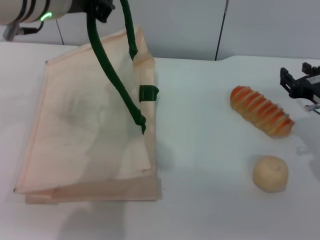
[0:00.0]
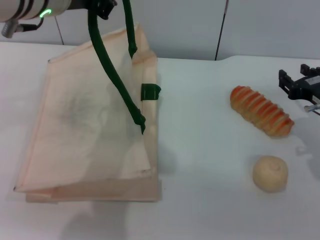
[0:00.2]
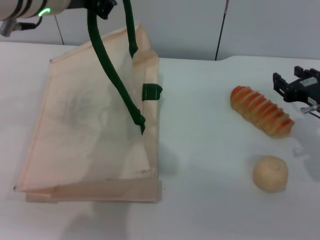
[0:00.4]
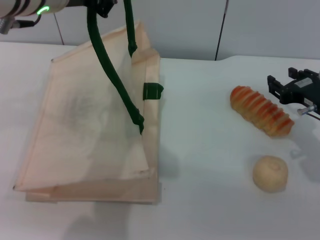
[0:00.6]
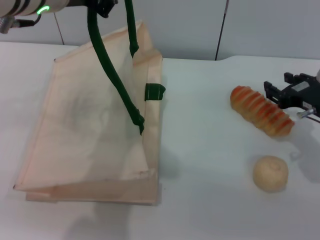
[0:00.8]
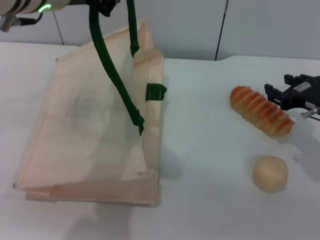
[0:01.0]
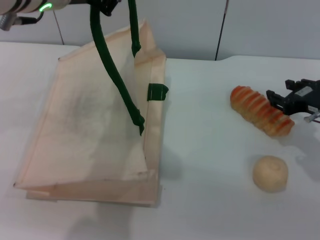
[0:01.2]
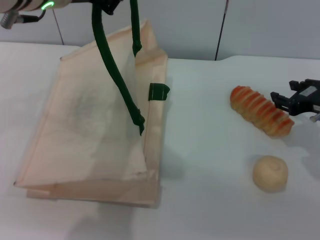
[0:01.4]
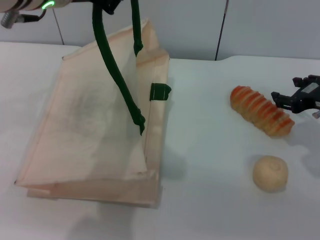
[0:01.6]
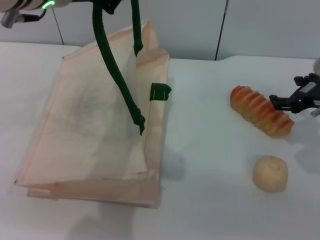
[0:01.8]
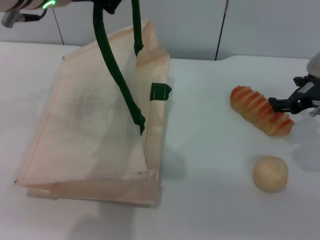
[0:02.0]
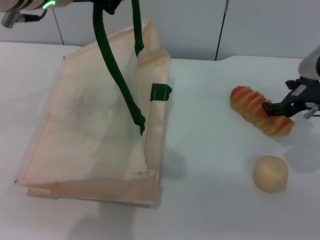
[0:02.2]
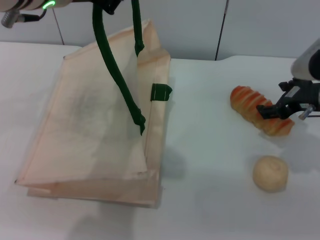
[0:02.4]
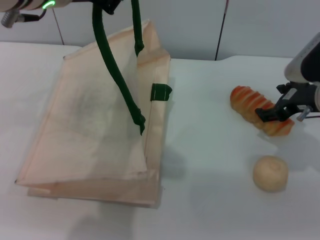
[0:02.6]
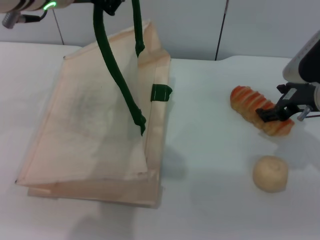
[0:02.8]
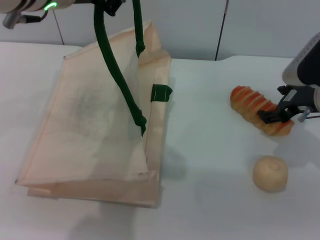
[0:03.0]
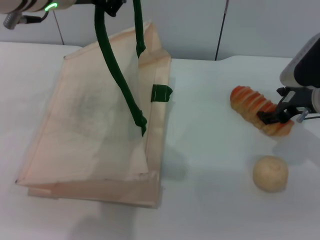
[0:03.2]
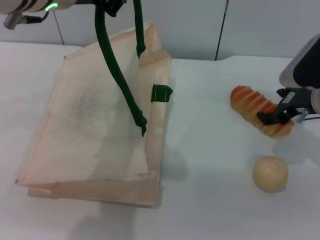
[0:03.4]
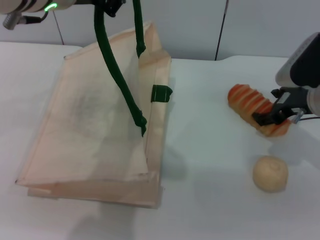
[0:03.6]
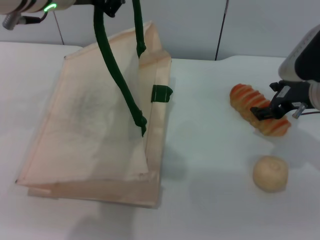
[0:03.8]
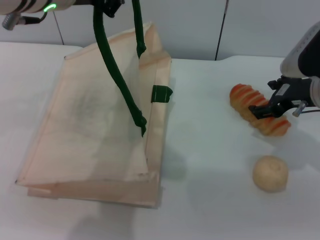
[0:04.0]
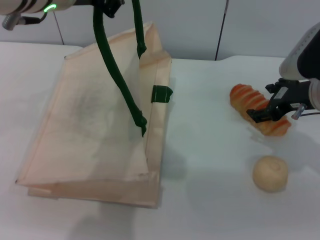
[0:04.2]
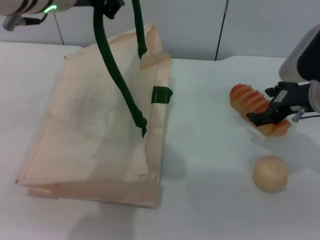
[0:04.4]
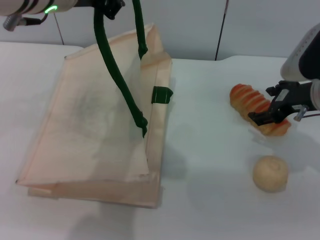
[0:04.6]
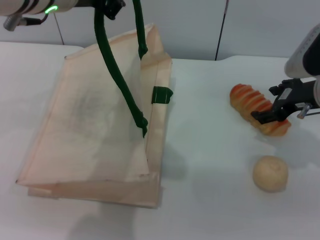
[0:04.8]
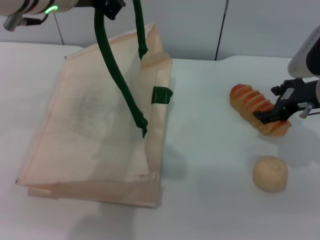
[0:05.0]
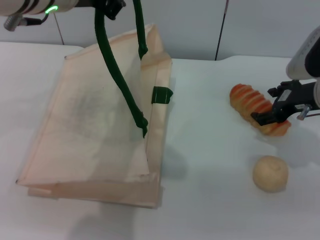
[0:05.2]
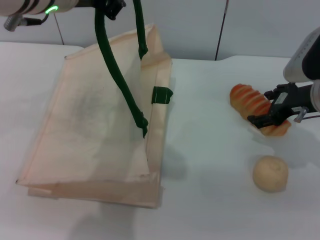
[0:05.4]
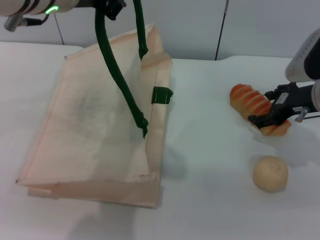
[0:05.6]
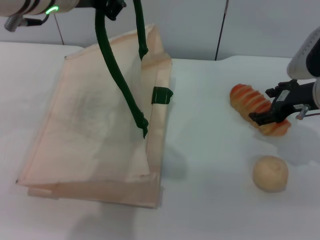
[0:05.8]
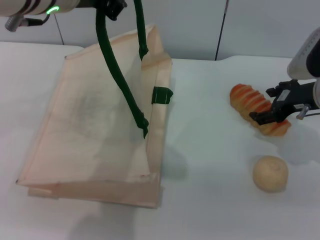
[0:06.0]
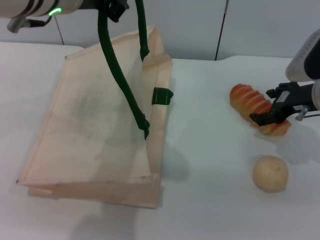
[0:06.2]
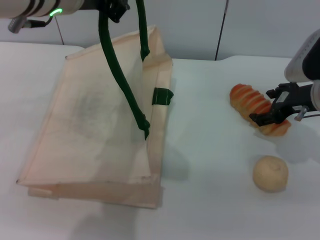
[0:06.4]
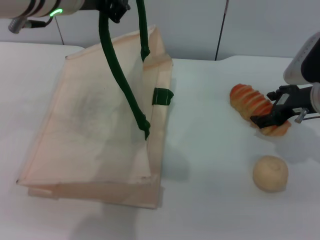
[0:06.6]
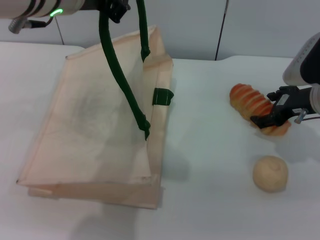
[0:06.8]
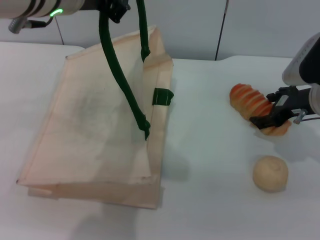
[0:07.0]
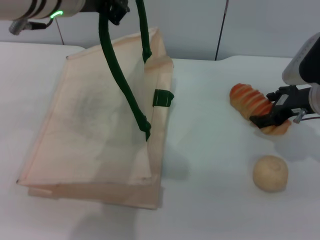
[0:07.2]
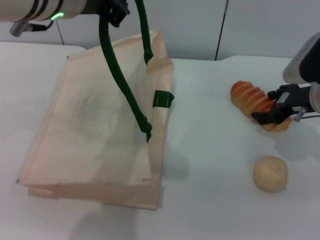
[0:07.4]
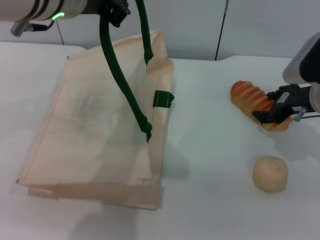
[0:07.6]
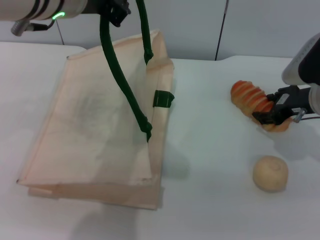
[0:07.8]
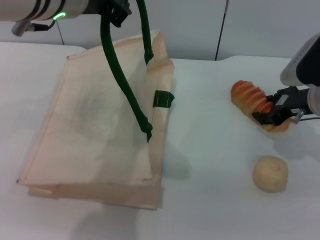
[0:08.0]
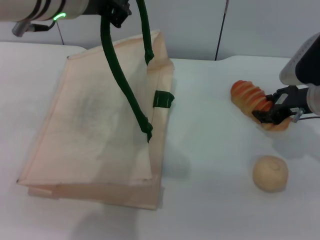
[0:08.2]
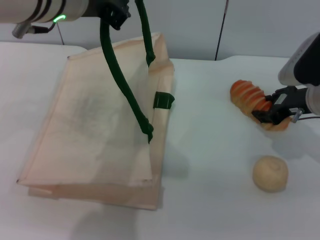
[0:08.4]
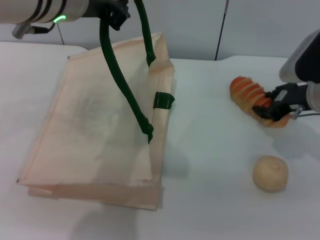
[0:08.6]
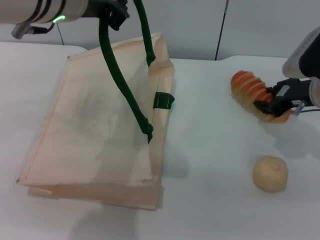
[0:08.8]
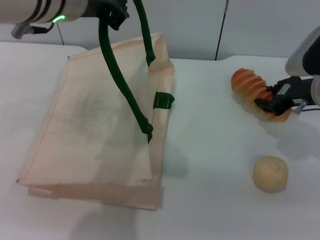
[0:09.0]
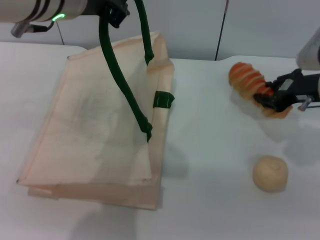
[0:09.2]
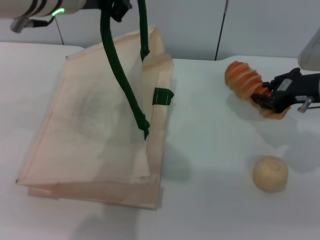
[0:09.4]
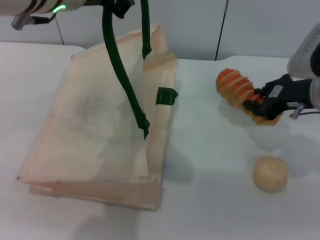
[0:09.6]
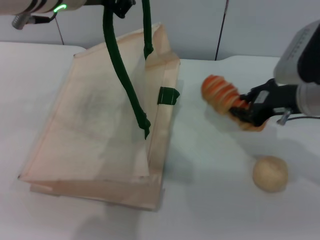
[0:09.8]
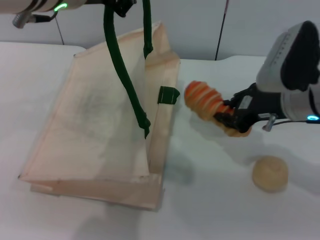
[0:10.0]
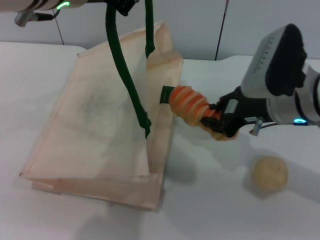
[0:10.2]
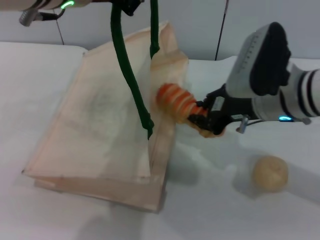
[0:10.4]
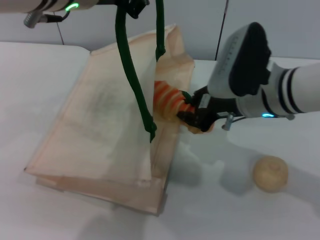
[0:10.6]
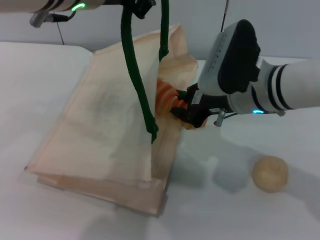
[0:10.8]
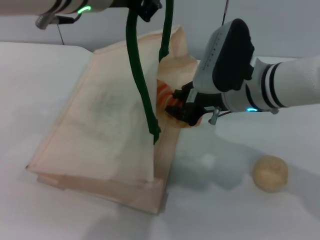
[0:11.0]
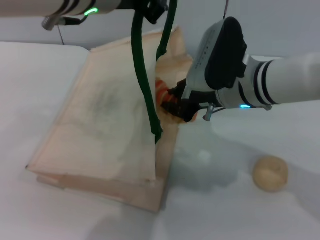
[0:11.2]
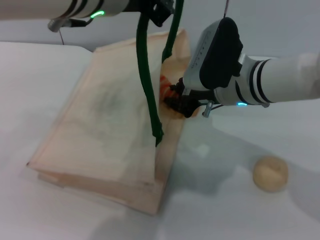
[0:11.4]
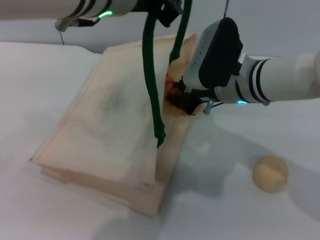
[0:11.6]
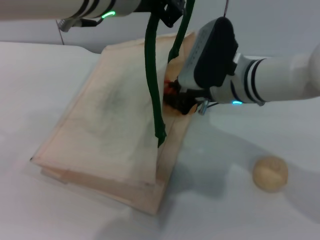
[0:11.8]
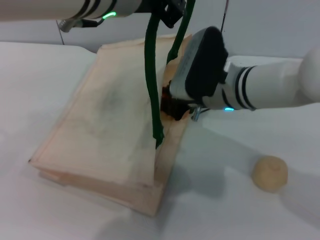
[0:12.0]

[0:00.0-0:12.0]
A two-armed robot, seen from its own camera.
Task of the whole recording: pick up the bread and egg yolk pastry from the table and place it in the white handbag.
Step, 0:00.0 to 0:09.4: Pick up the bread with the right gripper.
0:01.6 to 0:03.0: The right gripper opens up.
0:03.0 to 0:07.6: The grippers move only a little.
0:07.6 to 0:09.0: The right gripper closes its fingers.
0:09.0 to 0:10.4: The right gripper heads to the left and backward, covering about 10 cm.
0:10.4 to 0:12.0: The right gripper shifts roughly 5 cm to the left.

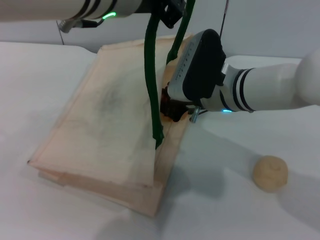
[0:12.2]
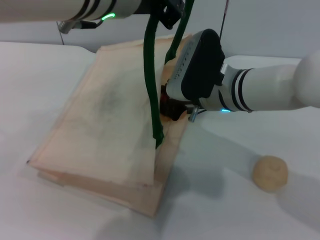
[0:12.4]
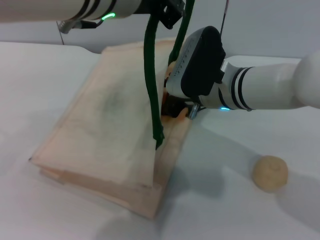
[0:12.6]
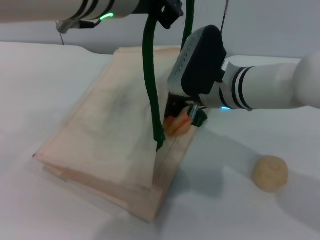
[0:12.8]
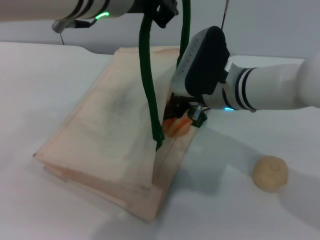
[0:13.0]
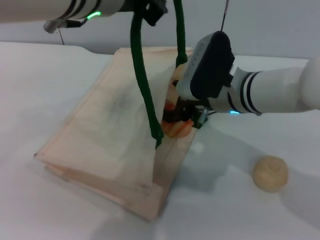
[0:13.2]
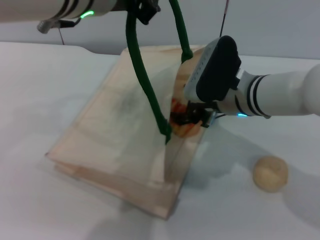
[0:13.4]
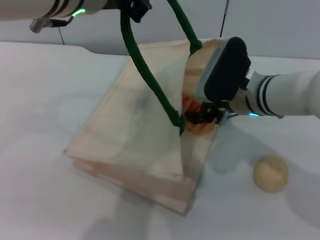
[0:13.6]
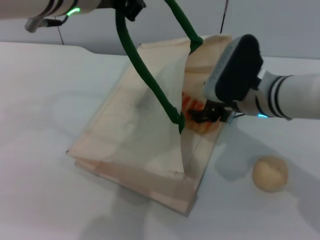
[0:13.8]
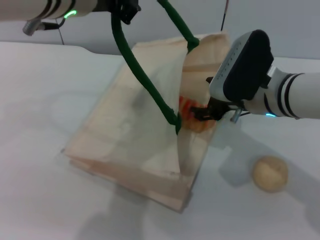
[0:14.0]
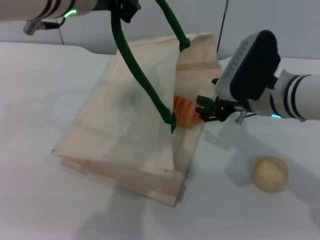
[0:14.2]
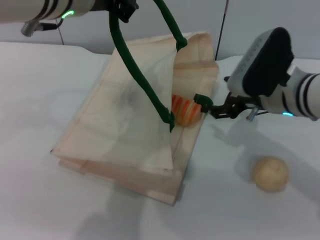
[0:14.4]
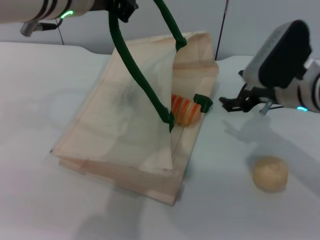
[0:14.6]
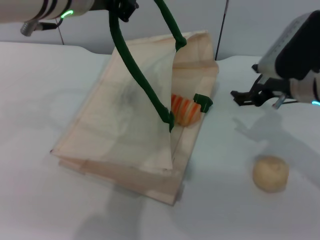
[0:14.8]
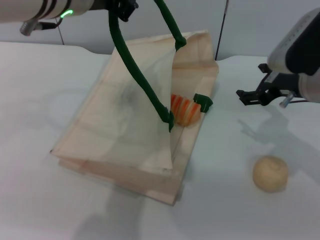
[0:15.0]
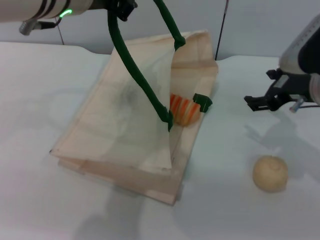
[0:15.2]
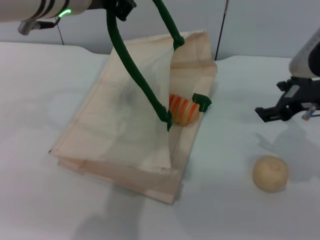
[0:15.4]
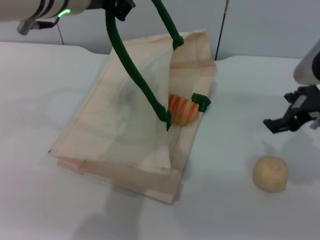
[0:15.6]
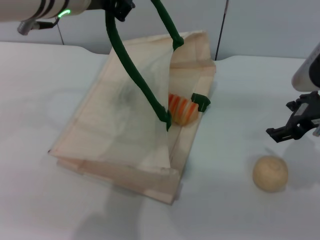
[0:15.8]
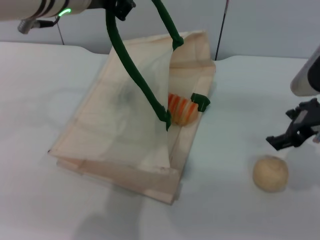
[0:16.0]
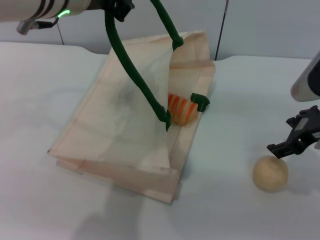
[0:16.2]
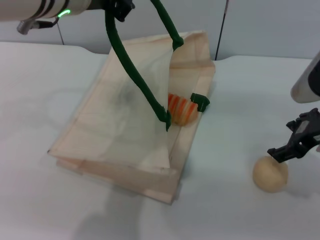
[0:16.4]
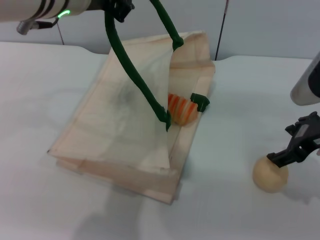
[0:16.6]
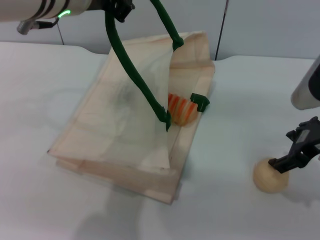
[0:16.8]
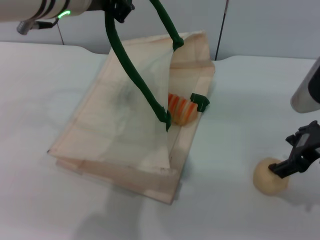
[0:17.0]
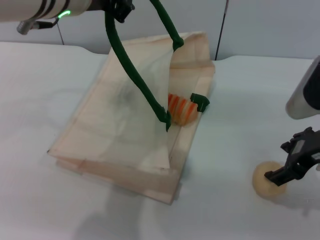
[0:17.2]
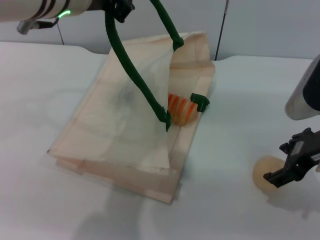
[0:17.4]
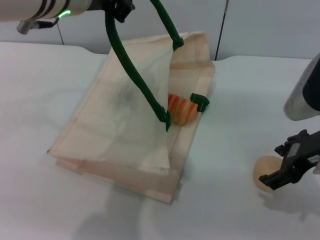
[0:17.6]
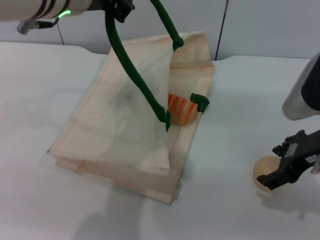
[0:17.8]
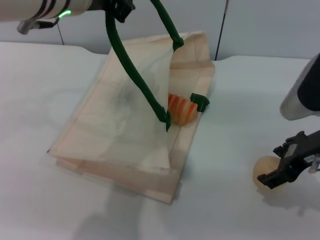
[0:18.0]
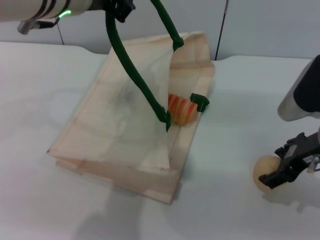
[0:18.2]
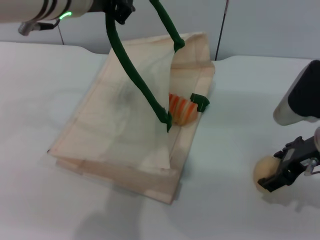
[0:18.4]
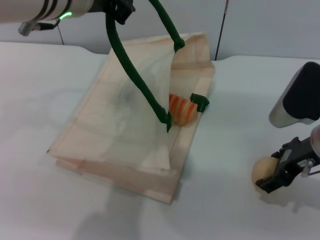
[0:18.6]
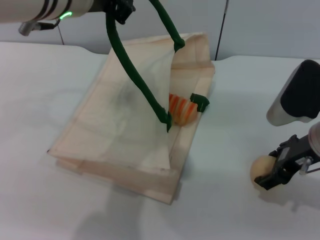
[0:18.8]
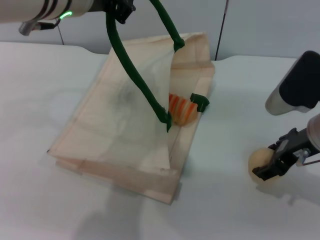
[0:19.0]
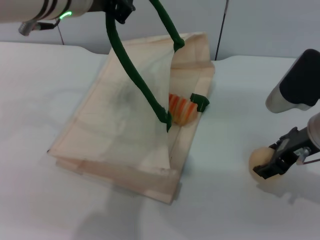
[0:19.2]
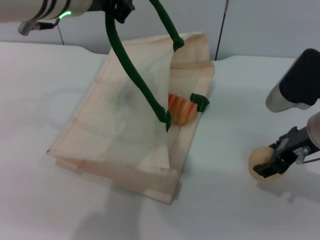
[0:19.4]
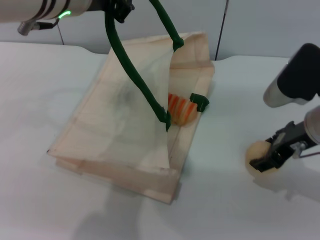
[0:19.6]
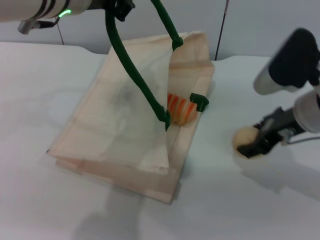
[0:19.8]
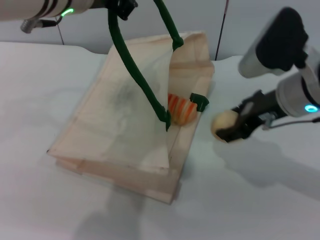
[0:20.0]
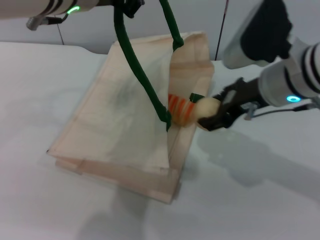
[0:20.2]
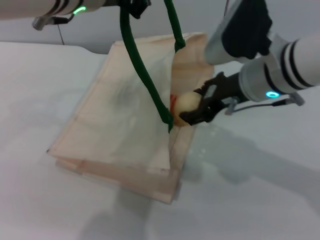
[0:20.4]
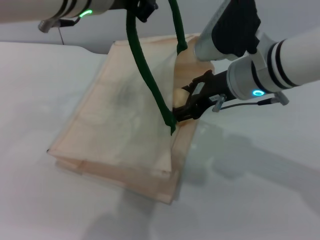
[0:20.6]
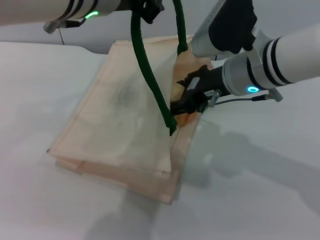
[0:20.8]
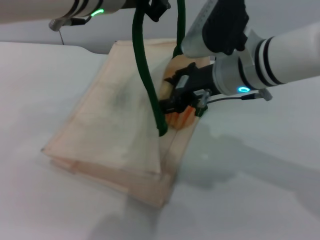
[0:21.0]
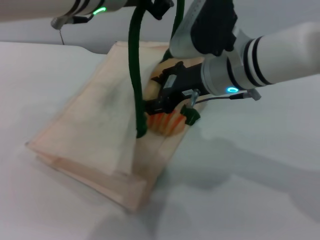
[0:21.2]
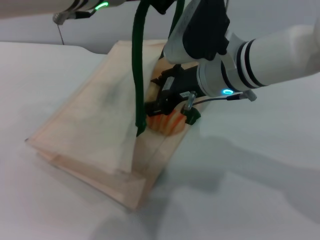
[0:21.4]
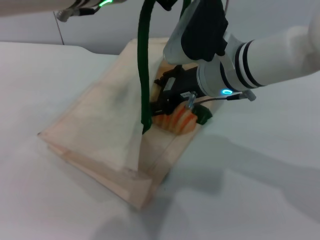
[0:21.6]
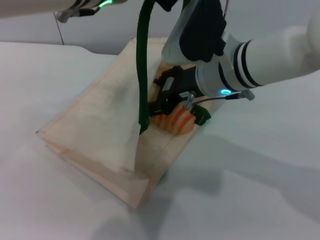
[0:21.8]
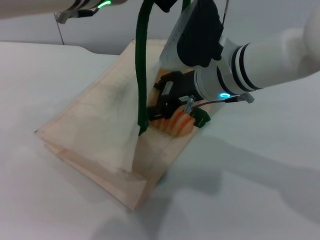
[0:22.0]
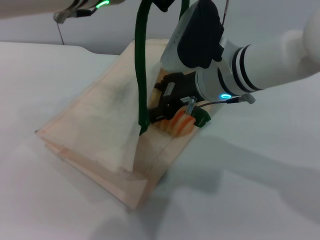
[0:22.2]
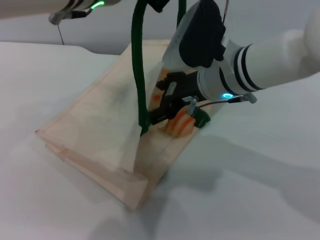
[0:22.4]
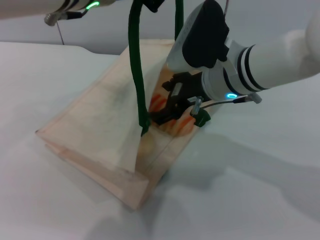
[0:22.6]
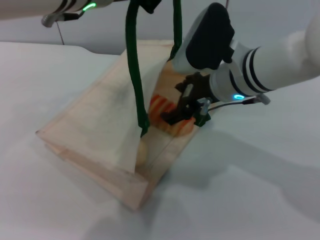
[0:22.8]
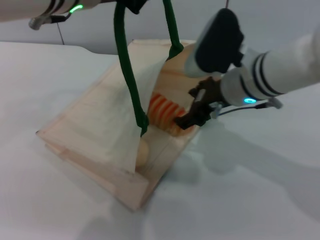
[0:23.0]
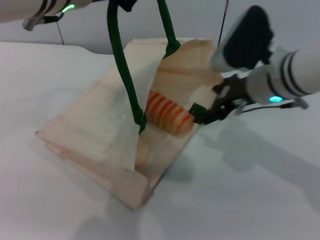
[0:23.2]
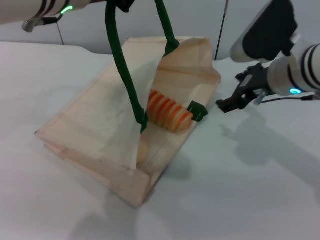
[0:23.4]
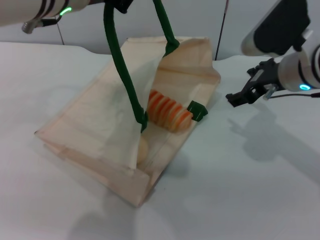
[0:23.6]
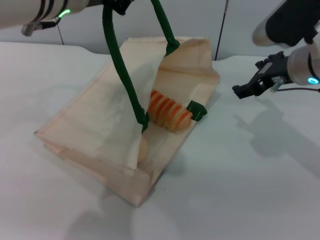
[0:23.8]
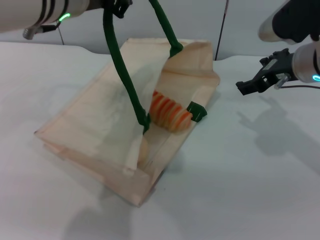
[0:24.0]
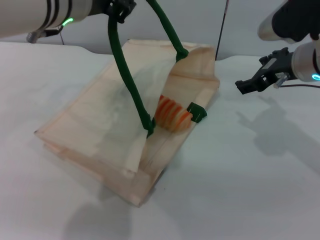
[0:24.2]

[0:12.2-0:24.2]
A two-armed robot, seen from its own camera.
Task of the whole recording: pick up the bread and egg yolk pastry from the table and place it in the white handbag.
Step, 0:12.2 to 0:14.8: Place the bread into the woven bag with the right gripper.
Step, 0:15.0 to 0:19.6: Pick up the egg yolk pastry with the right gripper.
Step, 0:19.8 to 0:23.2: Place the egg yolk pastry into the woven bag with the right gripper.
0:12.2 to 0:13.8: The right gripper moves to the right, approximately 5 cm, and opens.
0:13.8 to 0:15.2: The right gripper moves to the right, roughly 10 cm.
0:16.6 to 0:19.8: The grippers make only small movements.
0:19.8 to 0:21.2: The right gripper is displaced to the left by roughly 10 cm.
0:21.2 to 0:22.6: The grippers make only small movements.
0:22.6 to 0:24.2: The right gripper shifts some 10 cm to the right; the left gripper moves some 5 cm.
